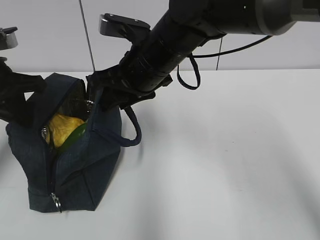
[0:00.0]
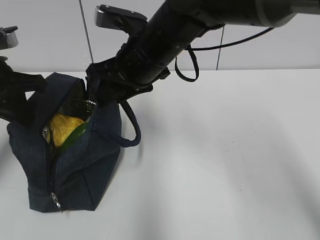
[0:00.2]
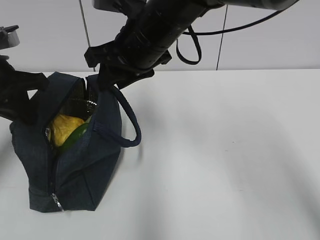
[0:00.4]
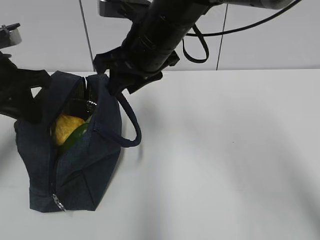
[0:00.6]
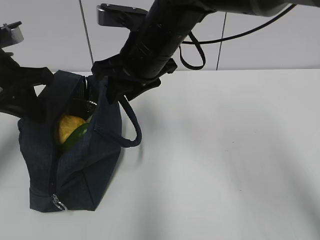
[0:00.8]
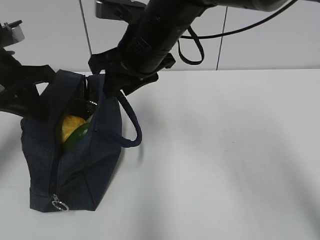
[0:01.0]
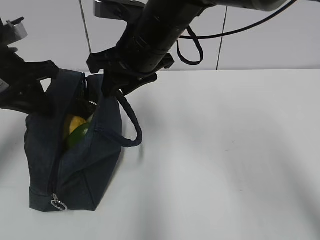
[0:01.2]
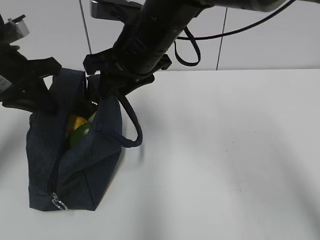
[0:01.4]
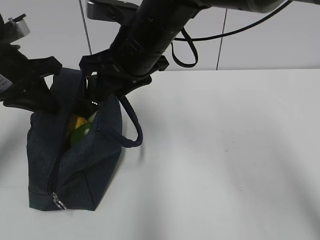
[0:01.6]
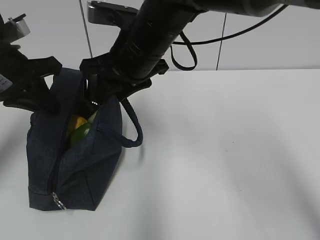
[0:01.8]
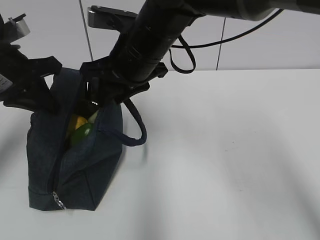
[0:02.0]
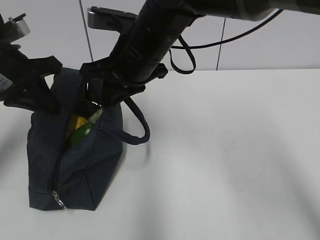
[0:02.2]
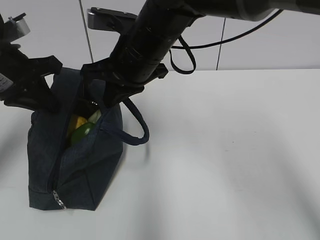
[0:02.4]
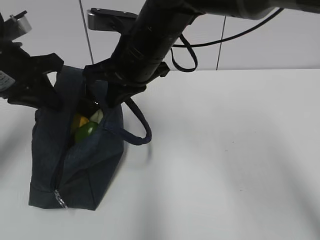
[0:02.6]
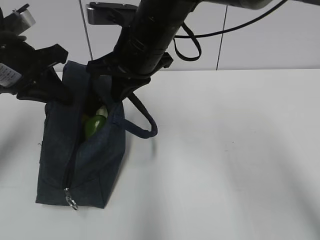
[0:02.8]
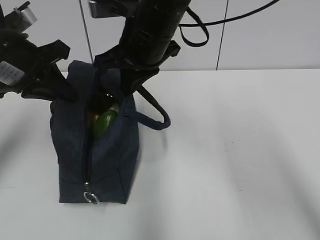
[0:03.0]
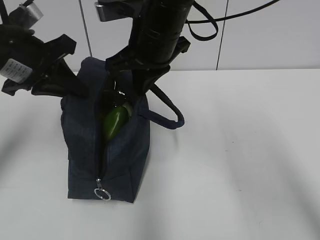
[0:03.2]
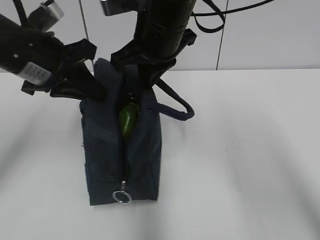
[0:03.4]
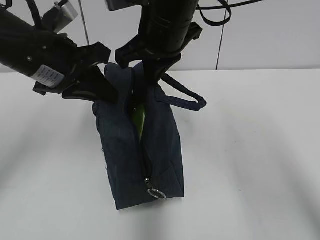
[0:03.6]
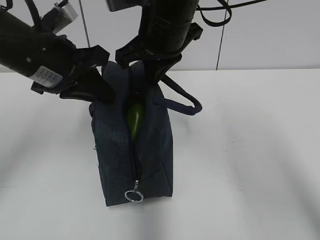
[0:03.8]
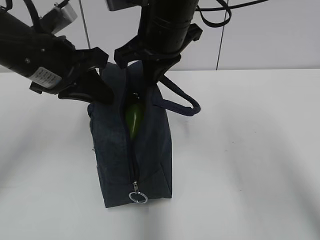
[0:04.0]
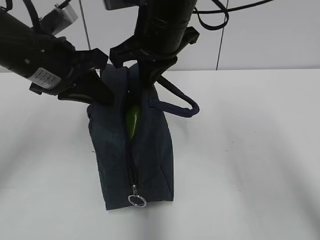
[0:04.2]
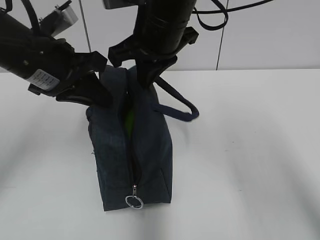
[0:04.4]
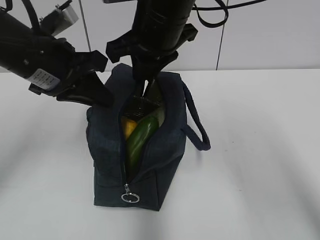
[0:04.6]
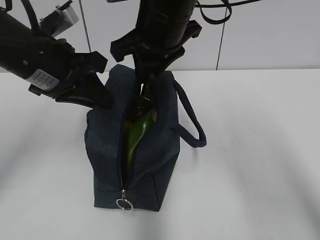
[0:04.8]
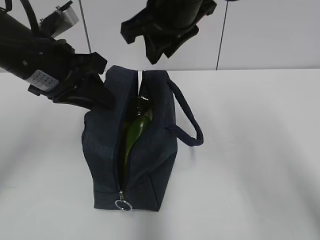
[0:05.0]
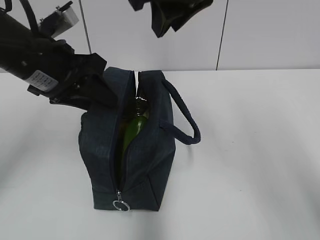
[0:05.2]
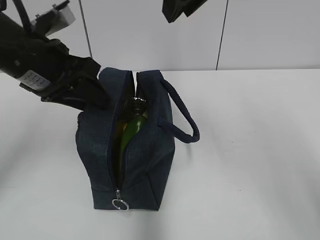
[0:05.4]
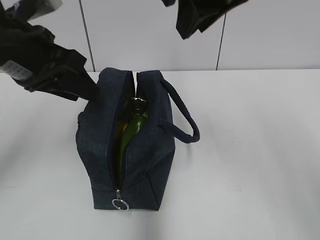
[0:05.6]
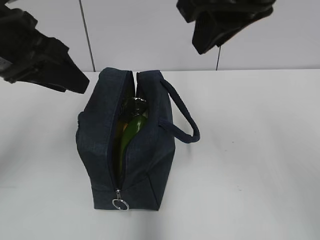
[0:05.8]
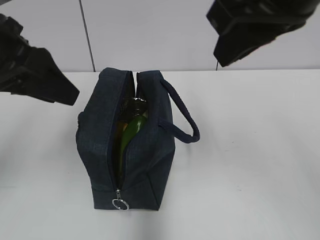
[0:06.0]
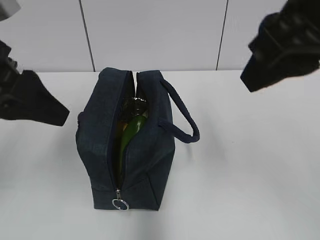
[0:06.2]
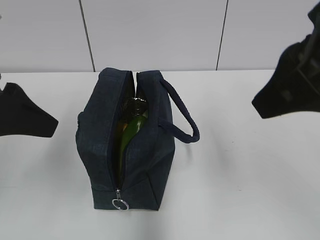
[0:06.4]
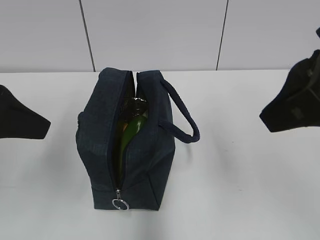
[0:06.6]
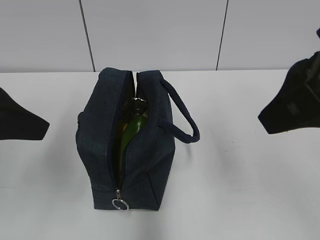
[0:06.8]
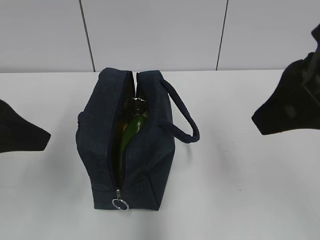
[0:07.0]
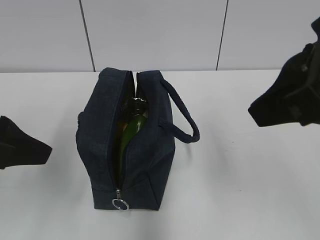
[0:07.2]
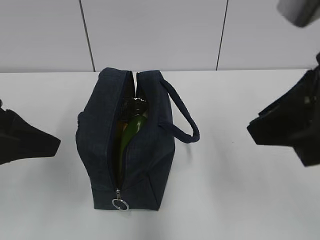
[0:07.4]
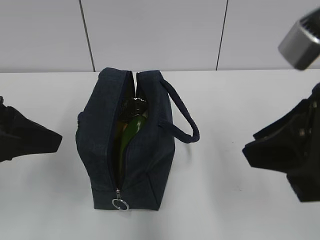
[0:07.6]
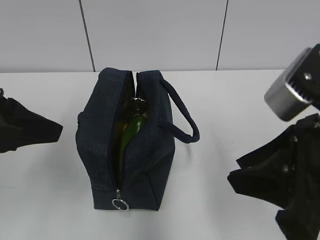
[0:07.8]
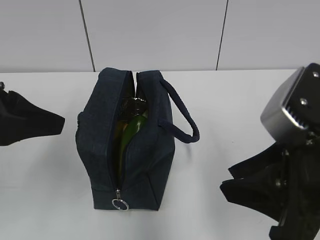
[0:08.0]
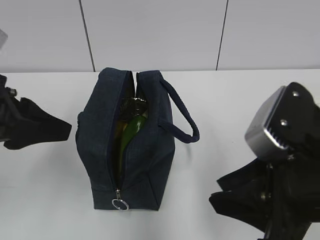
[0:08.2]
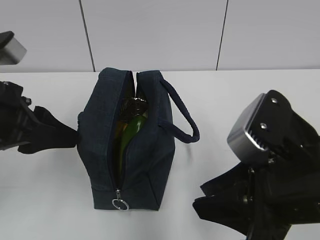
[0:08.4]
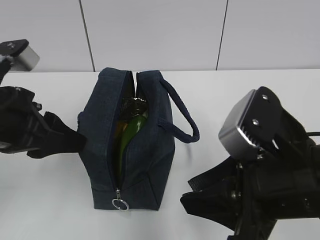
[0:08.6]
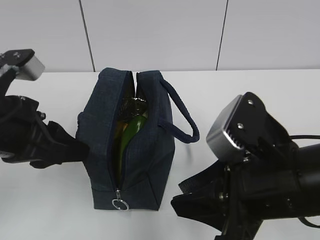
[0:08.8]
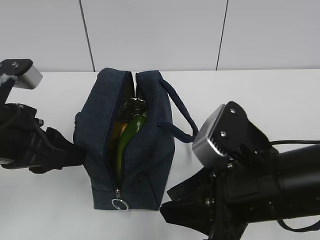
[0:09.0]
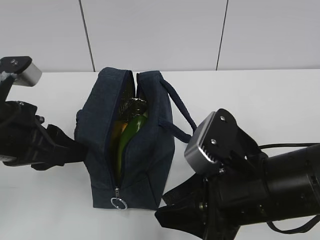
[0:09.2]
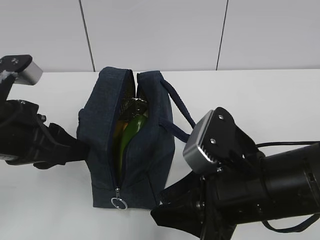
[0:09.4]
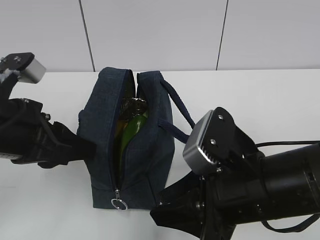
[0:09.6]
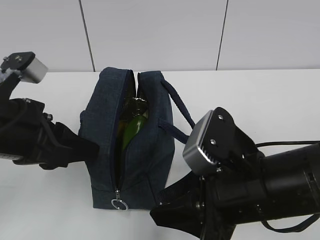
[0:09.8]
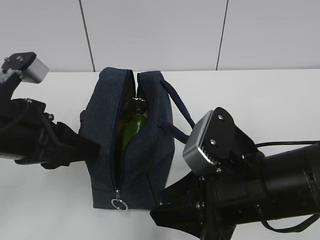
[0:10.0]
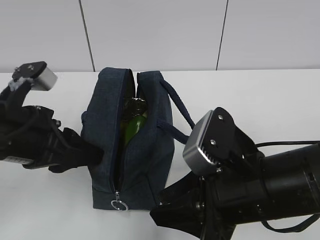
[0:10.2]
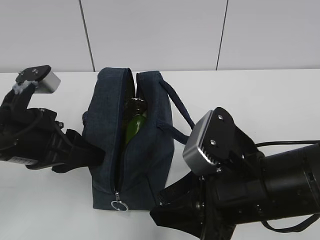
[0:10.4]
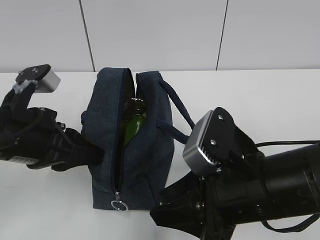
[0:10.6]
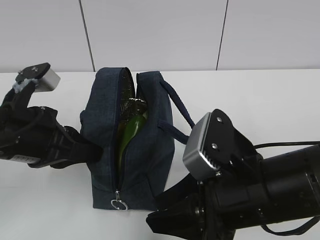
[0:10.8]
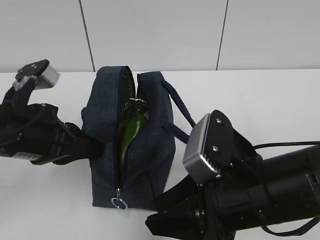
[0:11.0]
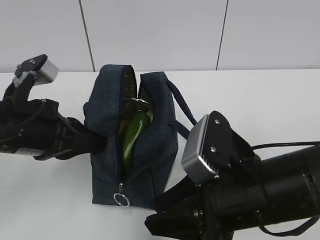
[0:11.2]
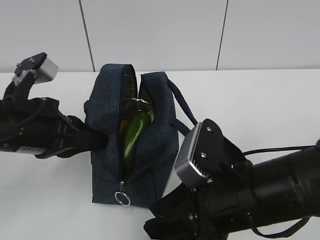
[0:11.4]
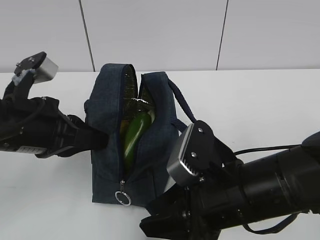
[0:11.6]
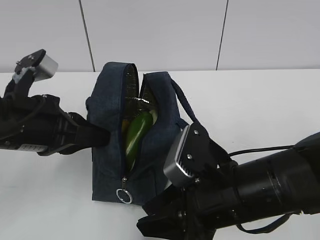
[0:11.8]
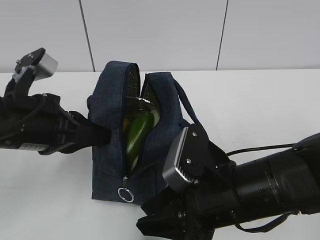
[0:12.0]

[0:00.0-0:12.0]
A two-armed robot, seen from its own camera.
Step, 0:00.0 to 0:02.0: Grab the lunch bag with your right hand.
Step, 0:02.4 to 0:04.8: Move the lunch bag to the right.
0:00.0 to 0:01.6: The grippers move only a little.
0:01.6 to 0:03.0: The right gripper closes up.
0:03.0 to 0:04.4: The left gripper heads to the right, covering some 5 cm.
0:04.4 to 0:06.0: The right gripper travels backward, to the right and upward by roughly 20 cm, while the left gripper shifts about 10 cm backward and upward, and opens its fingers.
0:06.0 to 0:07.6: The right gripper moves downward and backward, about 10 cm; the left gripper goes approximately 5 cm backward.
0:07.6 to 0:09.0: The left gripper goes some 5 cm downward; the right gripper travels downward and to the left by approximately 10 cm.
0:09.0 to 0:10.4: The grippers stay close to where they were, moving slightly.
0:10.4 to 0:12.0: The left gripper closes its fingers.

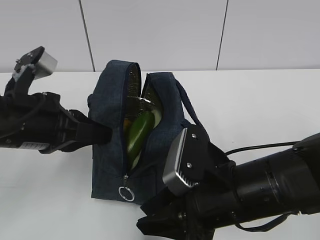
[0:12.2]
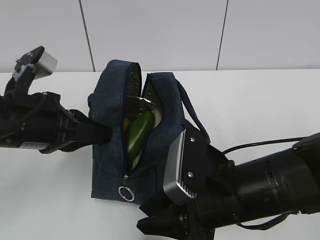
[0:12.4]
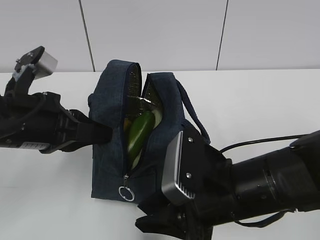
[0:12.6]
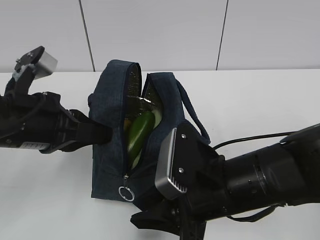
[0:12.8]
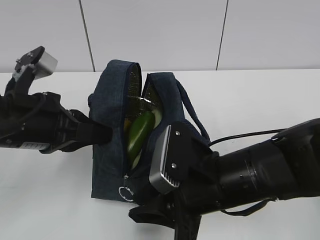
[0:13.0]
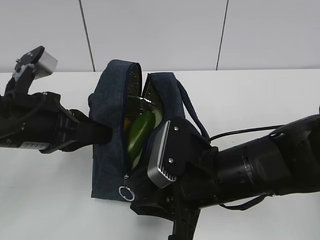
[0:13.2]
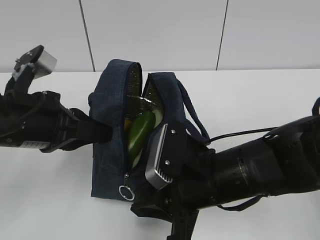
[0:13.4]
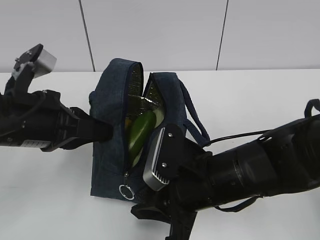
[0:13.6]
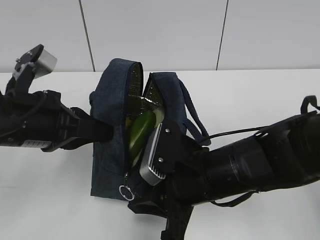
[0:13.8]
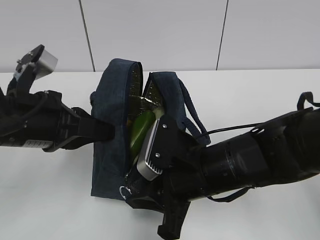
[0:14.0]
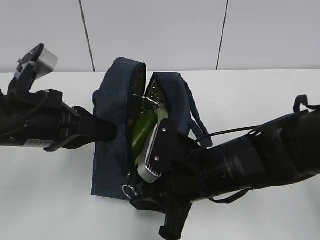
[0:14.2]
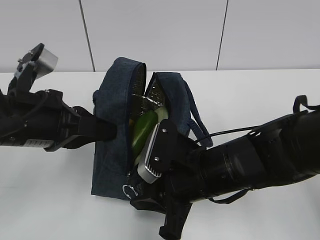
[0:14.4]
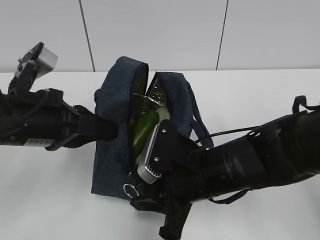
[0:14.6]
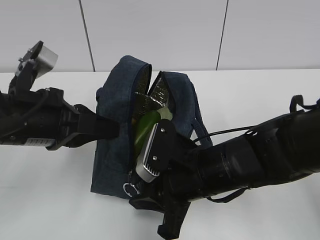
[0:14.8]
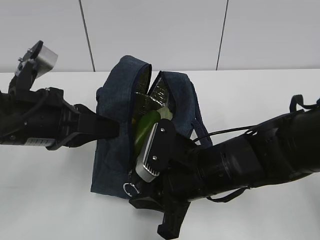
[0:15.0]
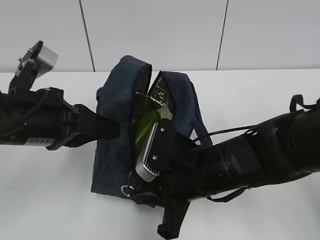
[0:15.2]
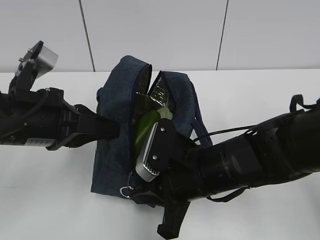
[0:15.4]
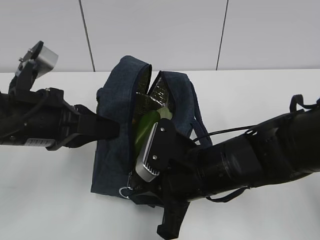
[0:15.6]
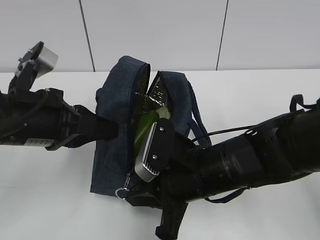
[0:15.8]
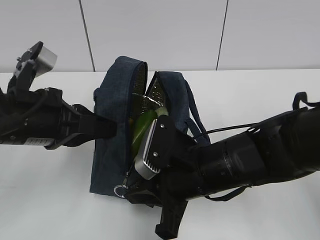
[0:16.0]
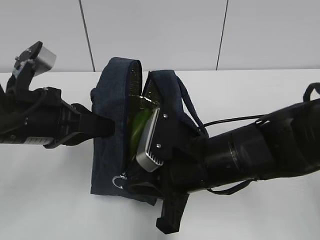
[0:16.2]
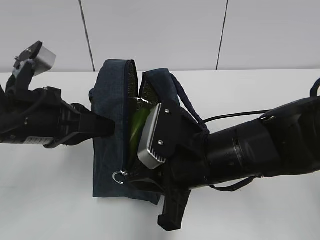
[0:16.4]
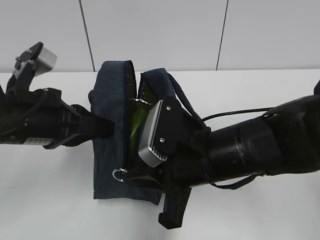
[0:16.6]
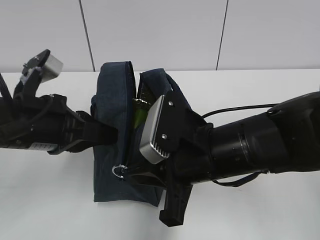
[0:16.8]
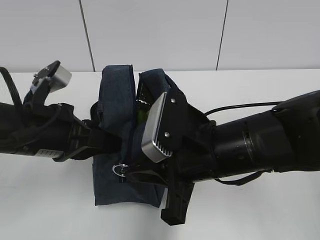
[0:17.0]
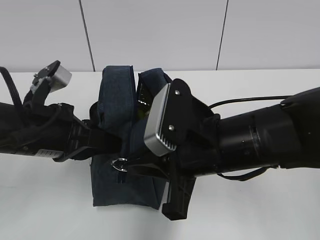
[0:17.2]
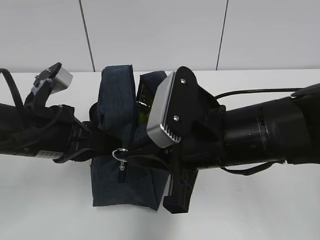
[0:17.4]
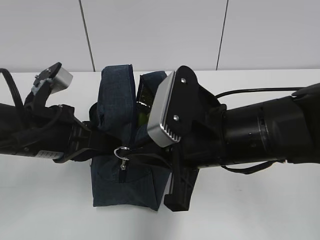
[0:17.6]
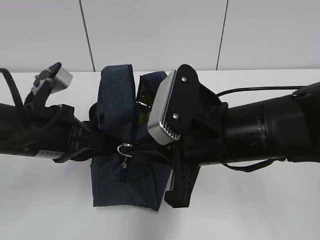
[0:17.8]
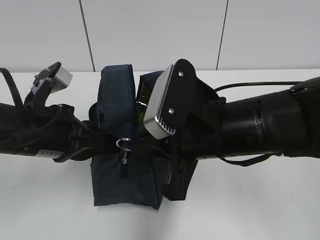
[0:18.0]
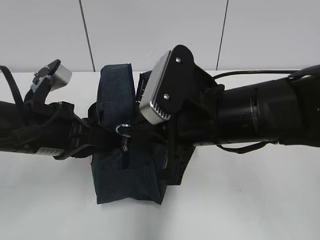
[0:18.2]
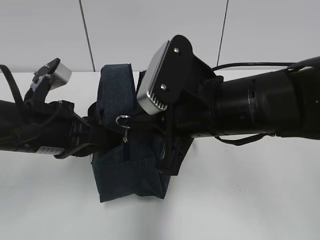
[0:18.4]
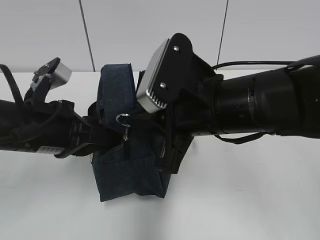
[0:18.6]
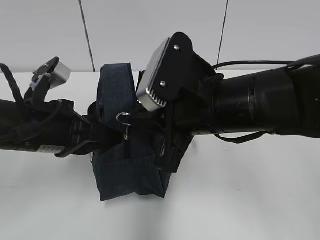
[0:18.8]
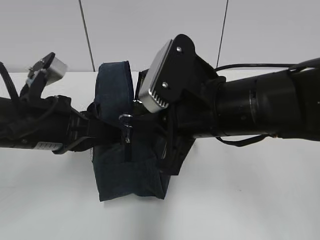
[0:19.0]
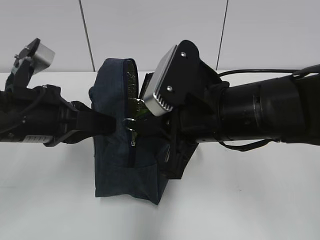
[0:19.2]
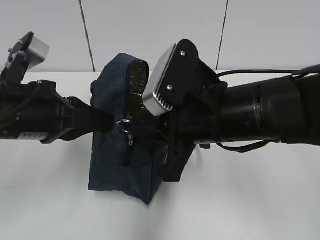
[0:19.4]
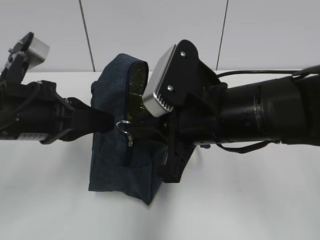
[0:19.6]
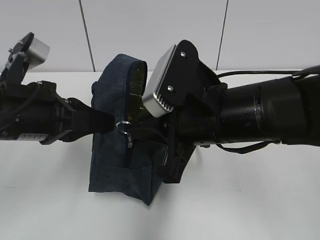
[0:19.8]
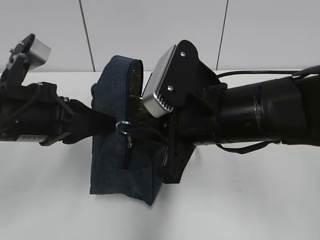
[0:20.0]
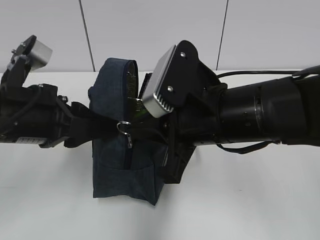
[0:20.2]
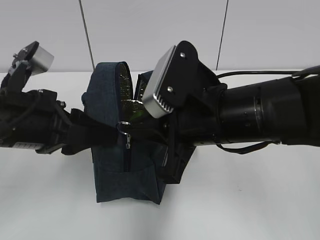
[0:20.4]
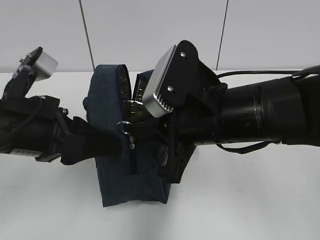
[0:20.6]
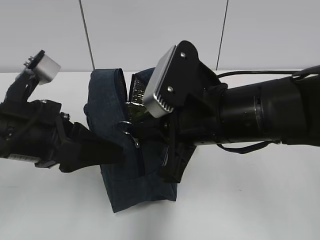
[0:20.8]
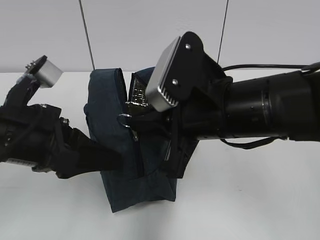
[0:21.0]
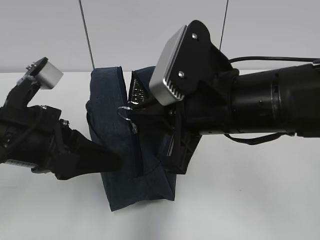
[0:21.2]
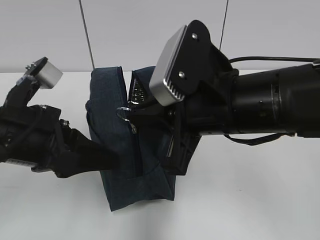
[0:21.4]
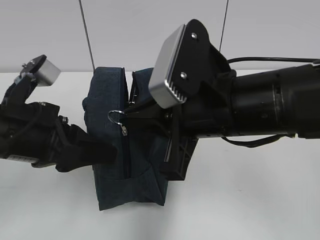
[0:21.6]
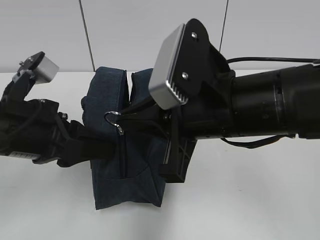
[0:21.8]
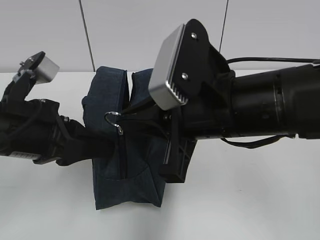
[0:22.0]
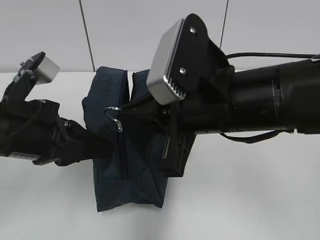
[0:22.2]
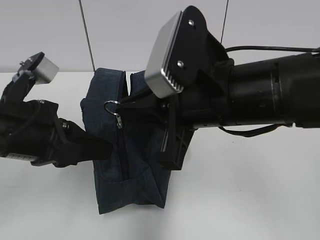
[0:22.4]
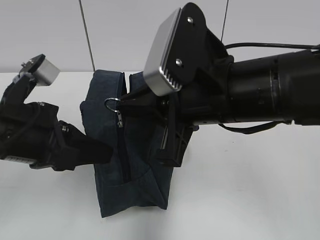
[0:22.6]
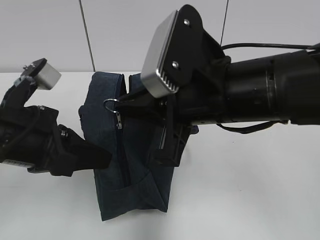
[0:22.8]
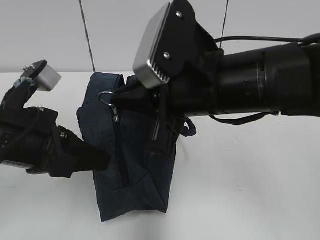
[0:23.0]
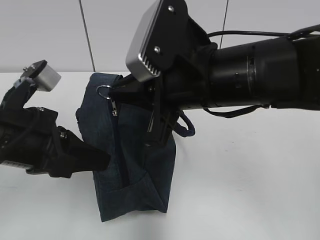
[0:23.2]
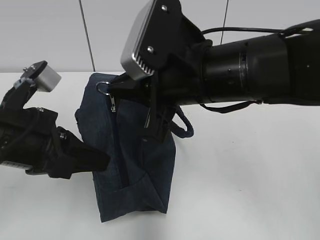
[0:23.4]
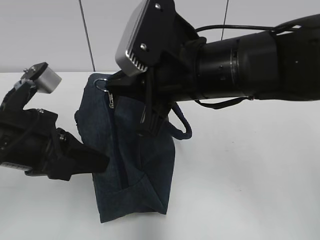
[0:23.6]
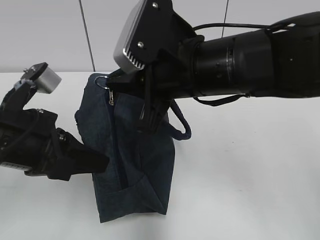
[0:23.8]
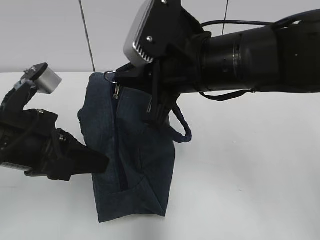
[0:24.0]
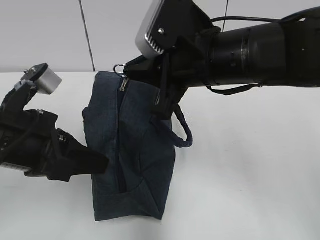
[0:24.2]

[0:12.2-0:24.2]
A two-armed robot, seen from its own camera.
0:12.2 to 0:13.8: The grippers move only a little.
0:13.8 to 0:15.2: Neither gripper changes place.
0:15.2 to 0:16.6: The grippers move only a little.
0:16.6 to 0:18.2: The right gripper travels upward by about 5 cm.
0:18.2 to 0:19.8: There are only small adjustments of the grippers.
0:19.8 to 0:21.2: The left gripper opens.
0:21.2 to 0:22.6: The left gripper closes its fingers.
0:22.6 to 0:24.2: The right gripper goes approximately 5 cm forward.
